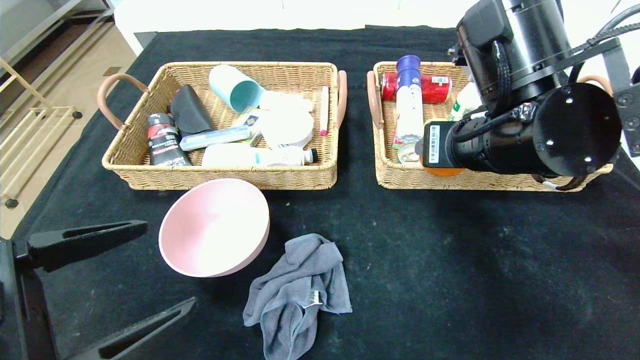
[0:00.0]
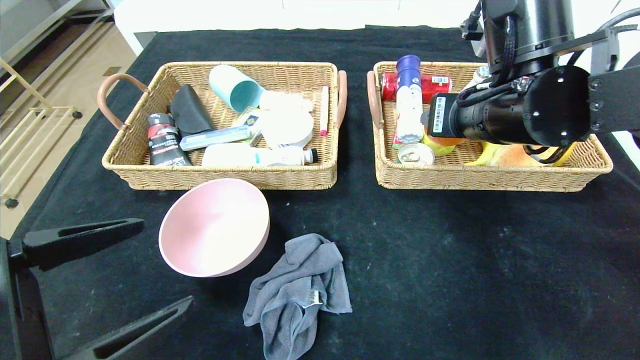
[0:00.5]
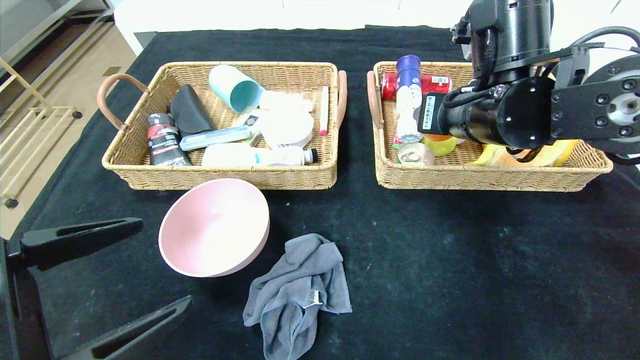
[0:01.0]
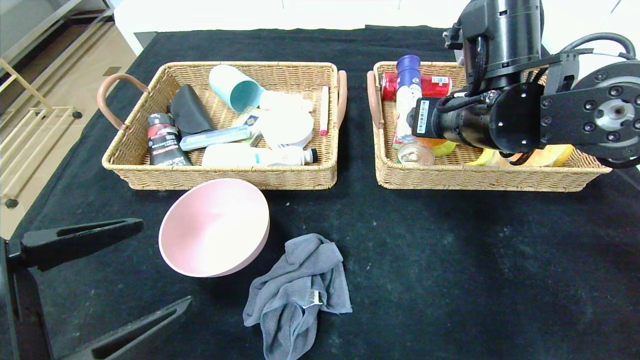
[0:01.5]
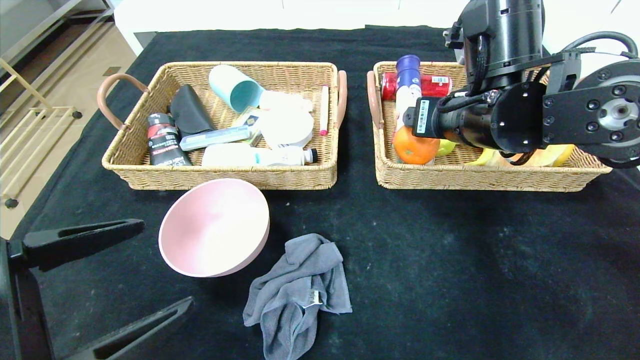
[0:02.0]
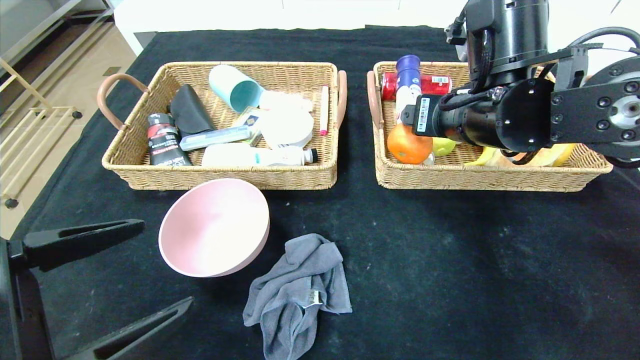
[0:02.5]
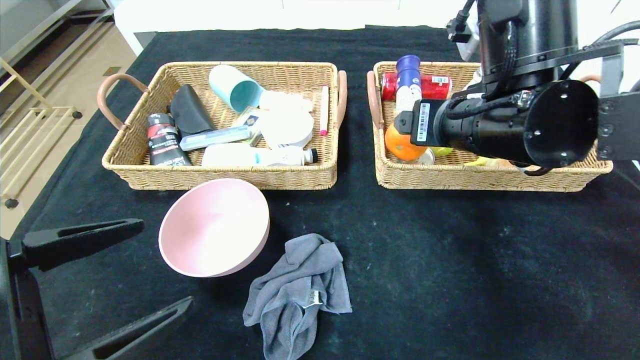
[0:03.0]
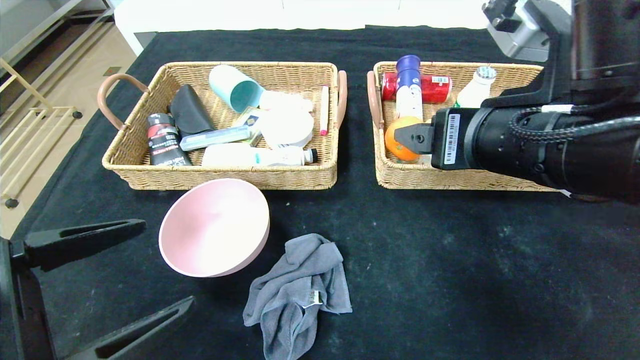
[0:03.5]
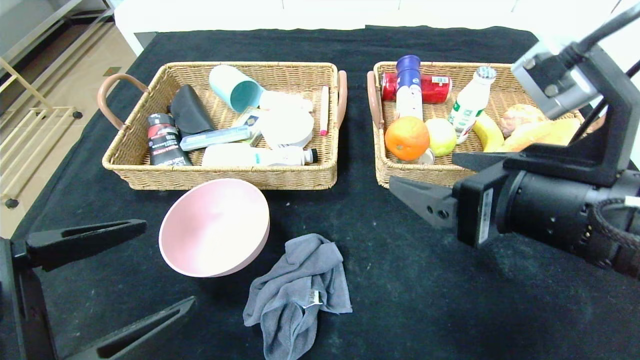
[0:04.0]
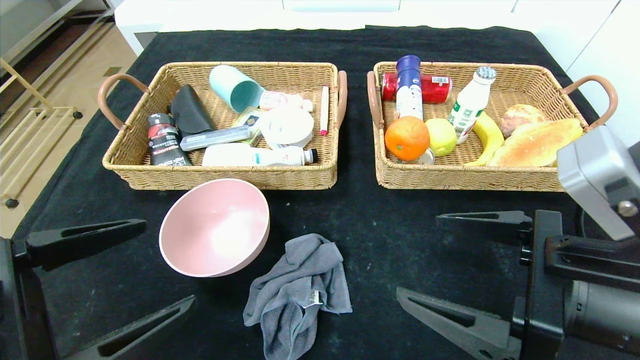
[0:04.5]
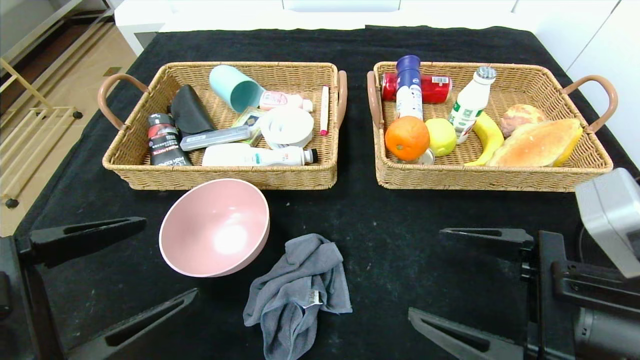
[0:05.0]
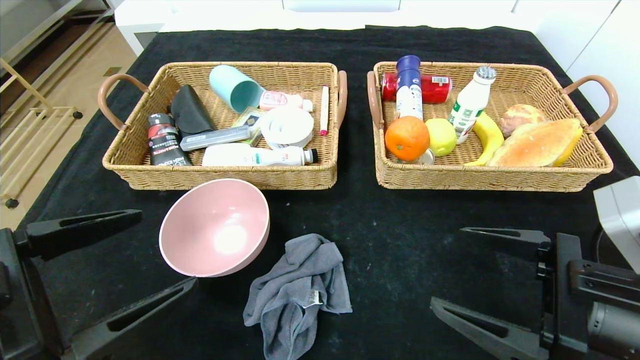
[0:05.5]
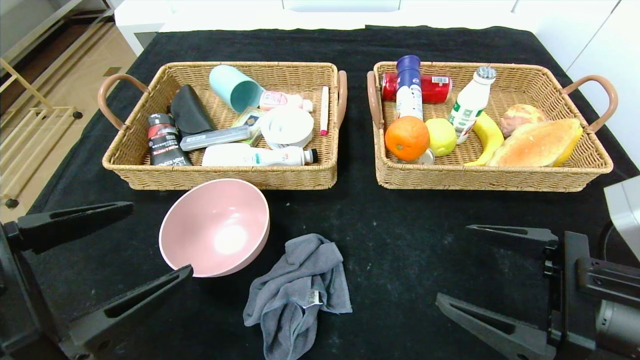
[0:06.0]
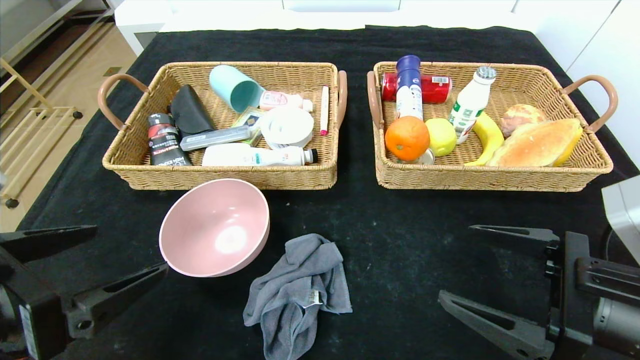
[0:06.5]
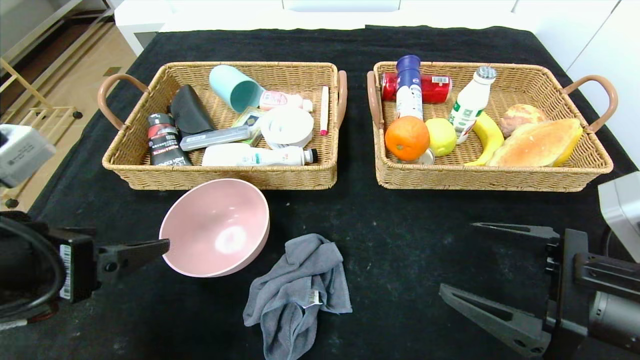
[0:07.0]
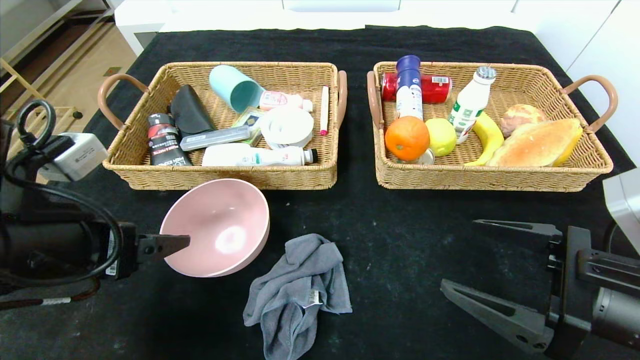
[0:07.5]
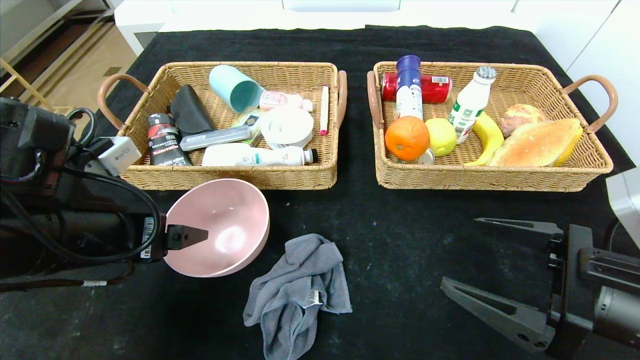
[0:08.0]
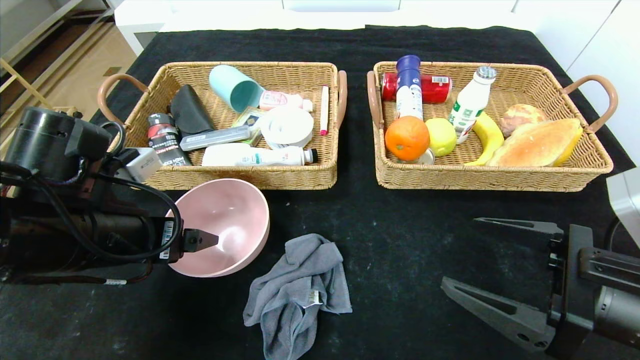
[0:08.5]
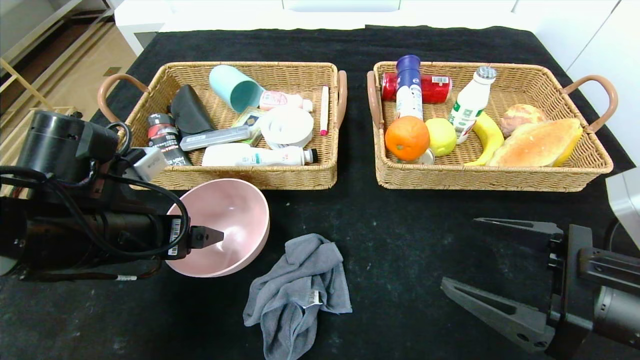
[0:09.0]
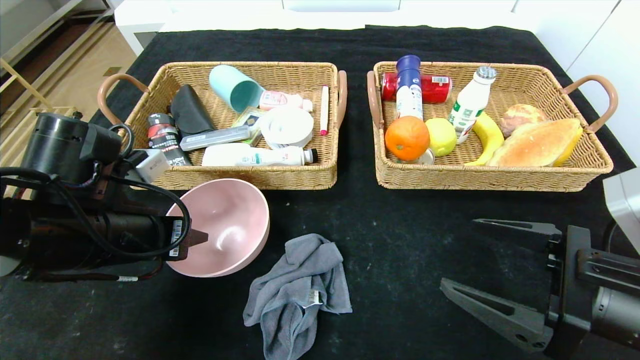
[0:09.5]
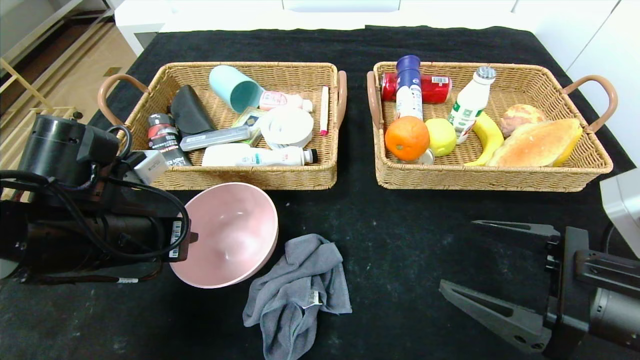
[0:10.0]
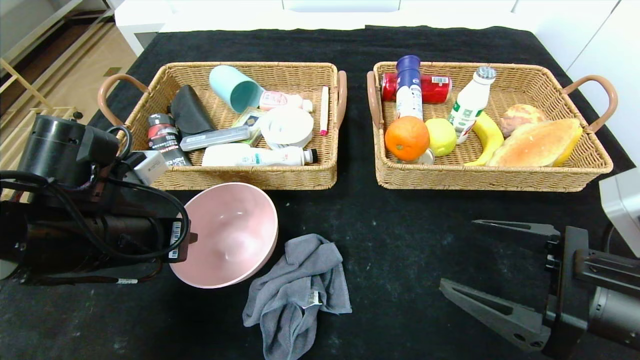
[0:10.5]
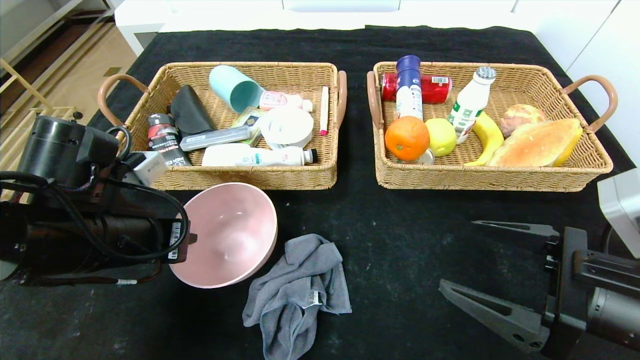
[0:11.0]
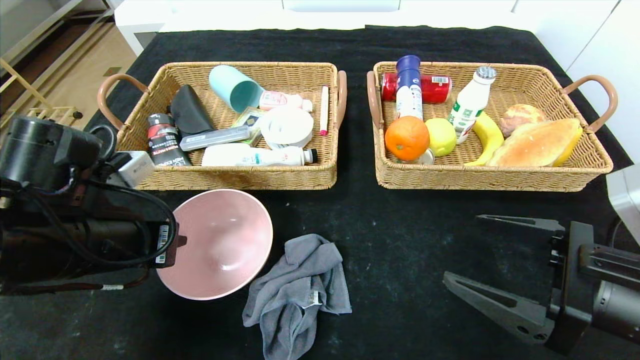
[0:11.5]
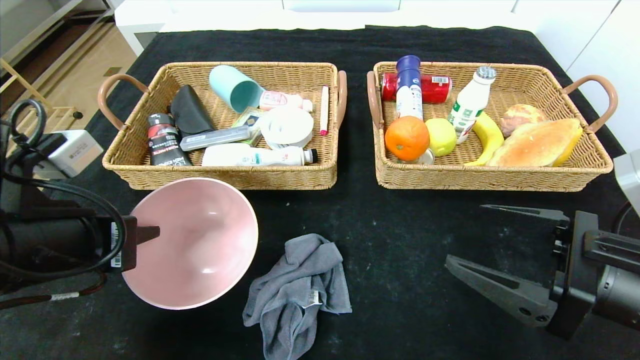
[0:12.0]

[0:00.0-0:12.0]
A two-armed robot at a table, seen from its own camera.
0:00.0 to 0:02.0: The right gripper goes approximately 5 cm forward.
0:02.0 to 0:04.0: The right gripper heads backward, covering about 15 cm.
0:04.0 to 0:06.0: The right gripper goes some 10 cm downward and to the right.
0:06.0 to 0:08.0: The left gripper travels forward by approximately 10 cm.
0:08.0 to 0:10.0: The left gripper closes its fingers.
0:10.0 to 0:12.0: The left gripper shifts roughly 5 cm backward.

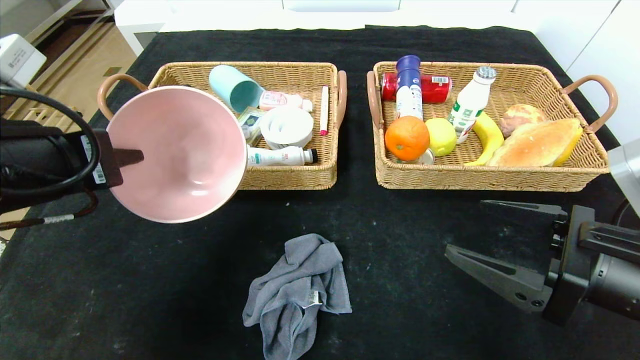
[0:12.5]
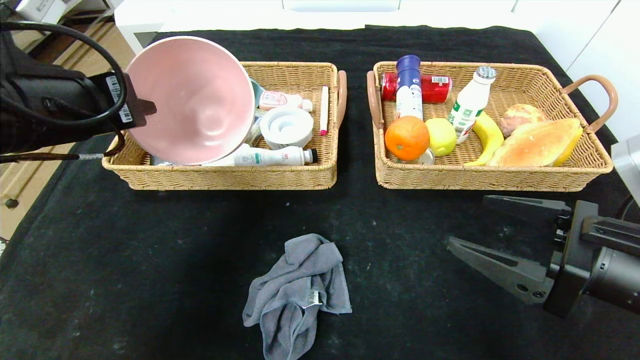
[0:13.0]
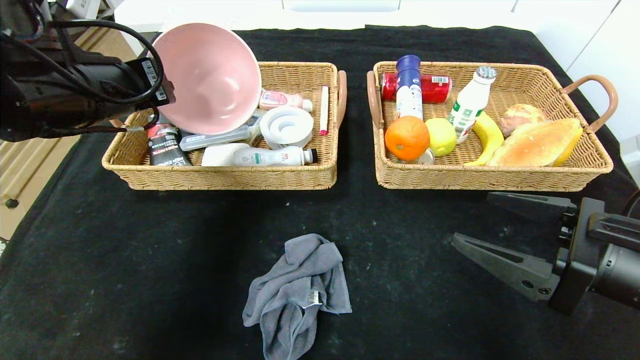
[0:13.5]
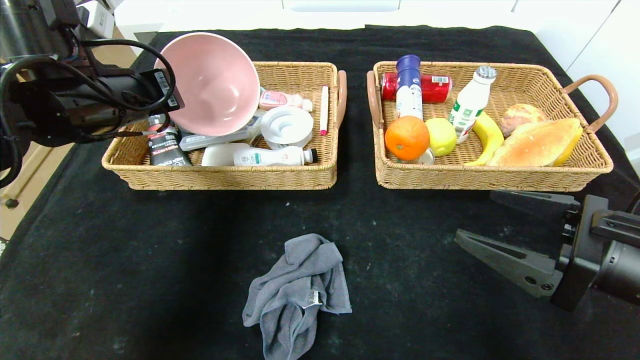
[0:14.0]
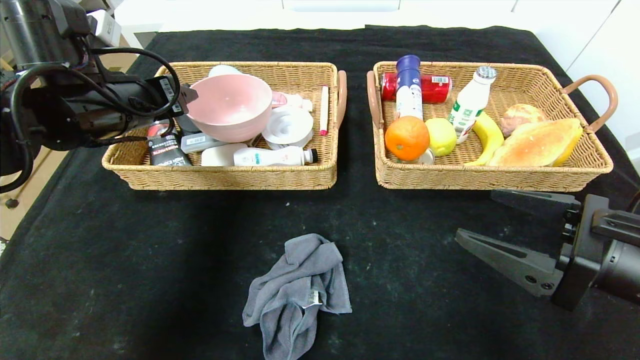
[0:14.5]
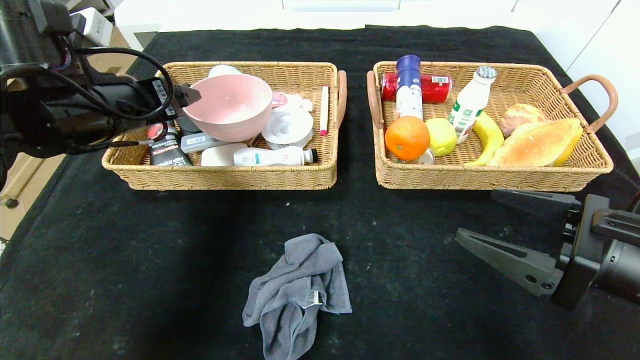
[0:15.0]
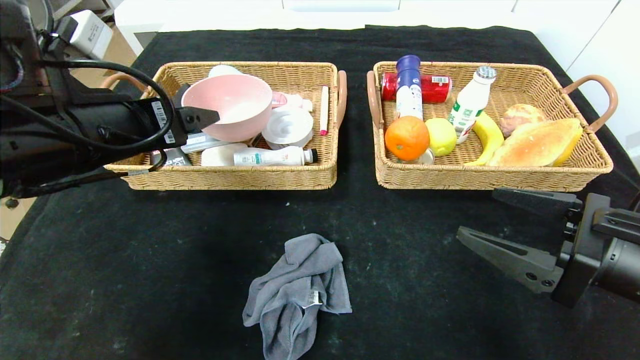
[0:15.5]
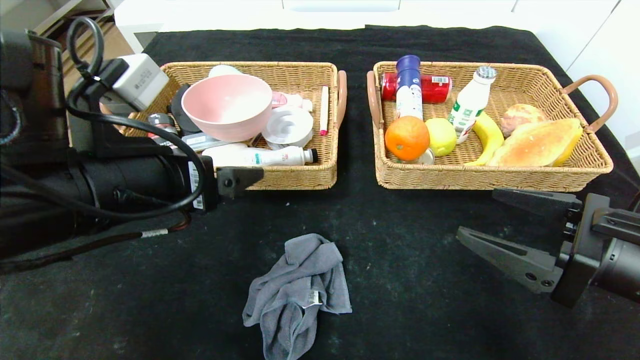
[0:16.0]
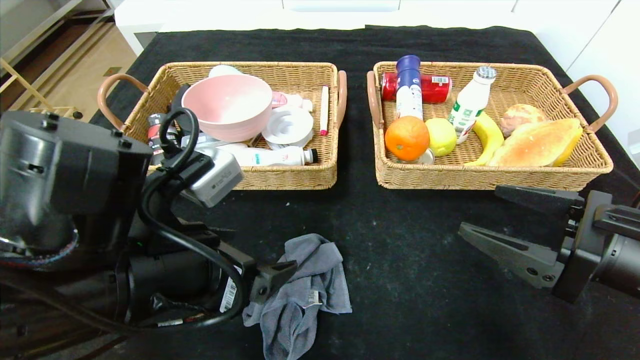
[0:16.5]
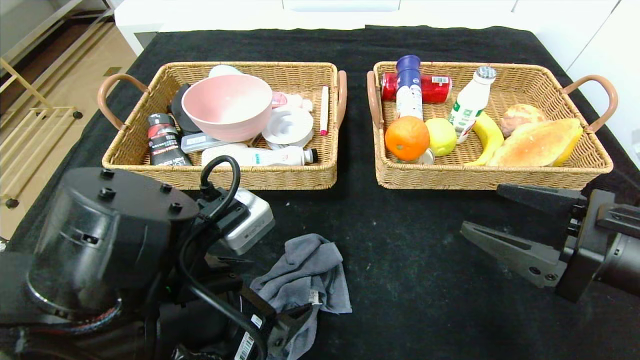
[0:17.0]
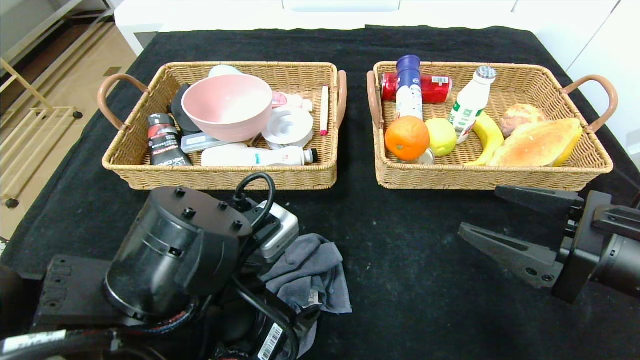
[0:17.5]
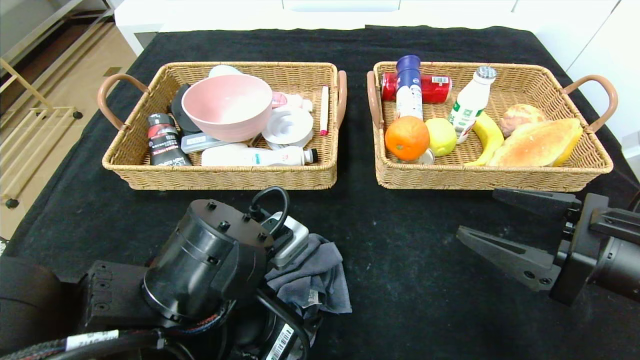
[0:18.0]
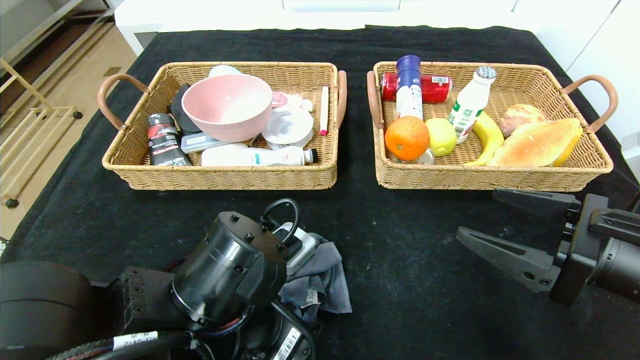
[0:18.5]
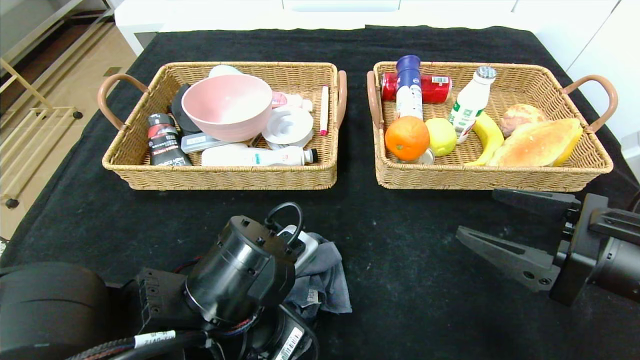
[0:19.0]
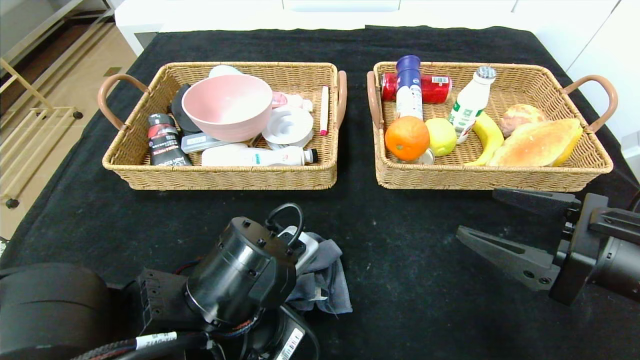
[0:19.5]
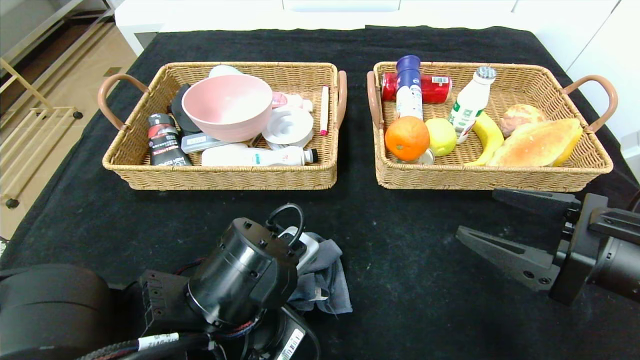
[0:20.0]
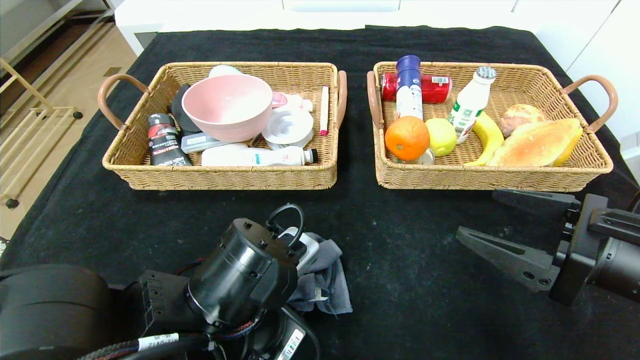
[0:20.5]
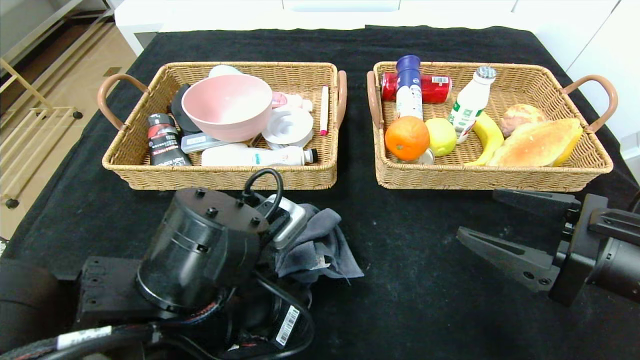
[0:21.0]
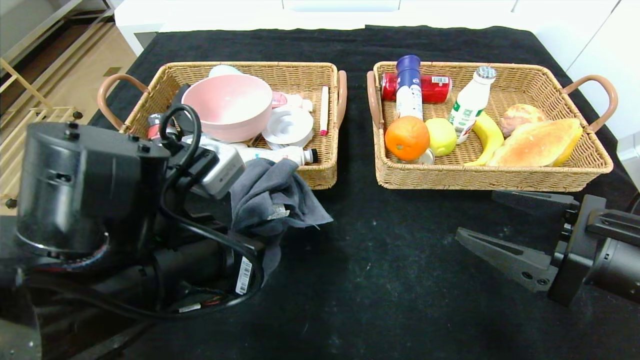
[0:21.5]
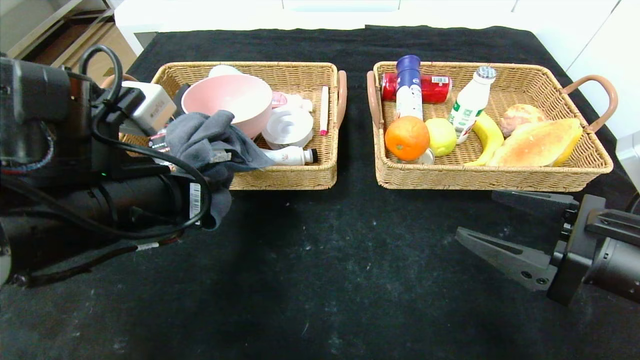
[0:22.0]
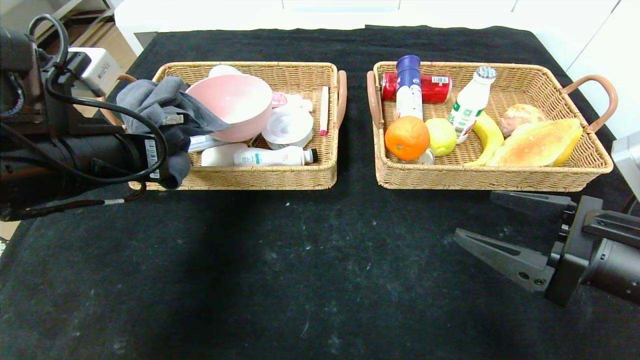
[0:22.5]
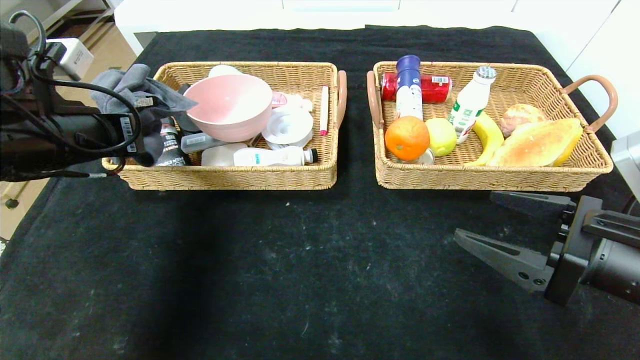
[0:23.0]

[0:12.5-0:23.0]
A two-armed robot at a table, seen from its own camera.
Step, 0:12.5 to 0:14.5: Grasp the pink bowl and put it in the left basket.
0:12.5 to 0:14.5: The left gripper moves forward, some 15 cm, and opens.
0:14.5 to 0:16.5: The left gripper travels backward, to the right and downward by some 20 cm, and opens.
0:16.5 to 0:19.0: The left gripper shifts some 5 cm downward.
0:19.0 to 0:21.0: The left gripper closes up.
0:21.0 to 0:23.0: The left gripper moves to the left, forward and upward, roughly 25 cm.
